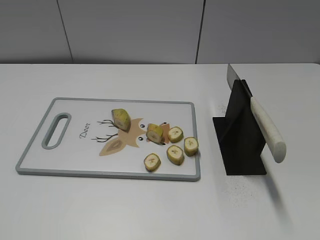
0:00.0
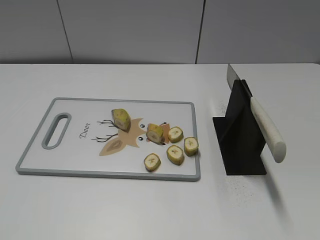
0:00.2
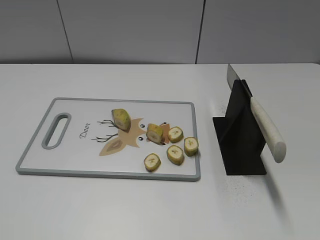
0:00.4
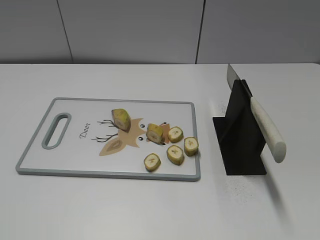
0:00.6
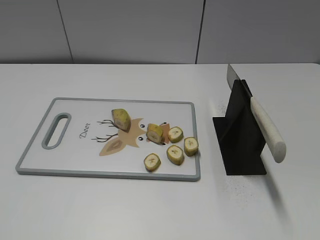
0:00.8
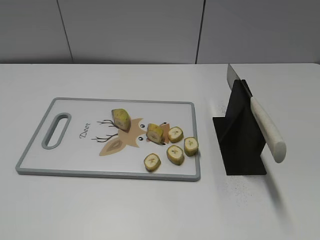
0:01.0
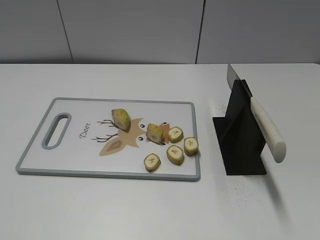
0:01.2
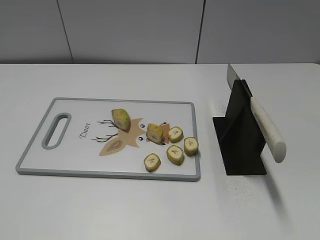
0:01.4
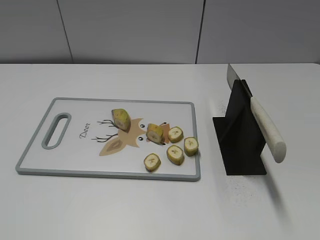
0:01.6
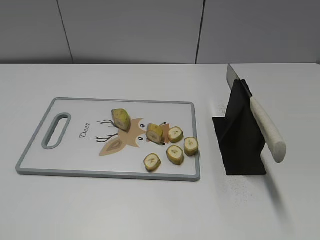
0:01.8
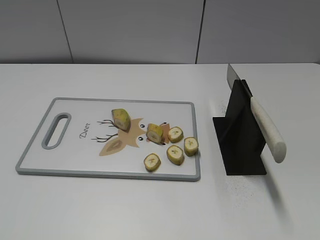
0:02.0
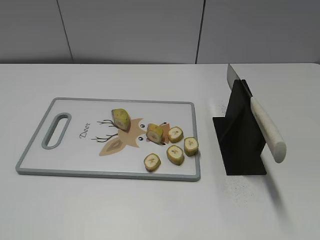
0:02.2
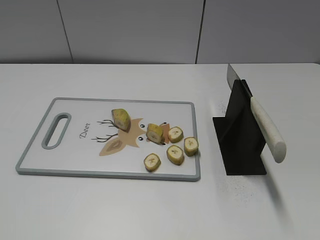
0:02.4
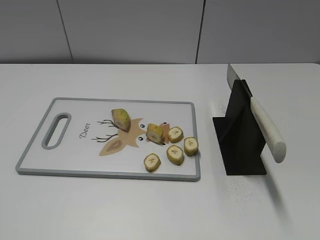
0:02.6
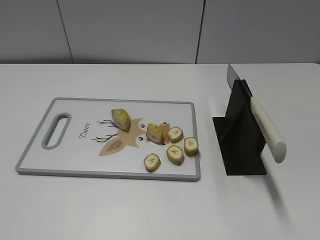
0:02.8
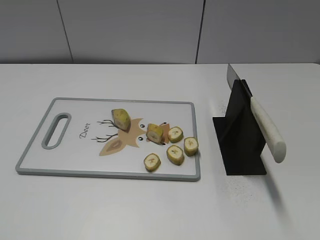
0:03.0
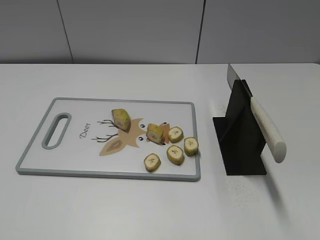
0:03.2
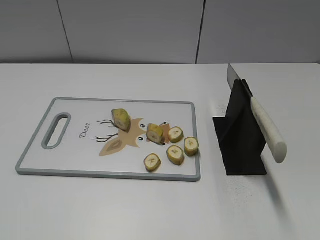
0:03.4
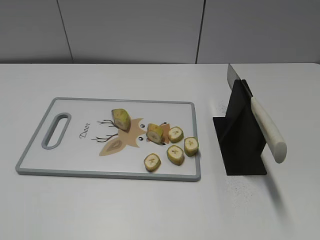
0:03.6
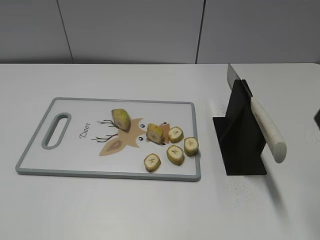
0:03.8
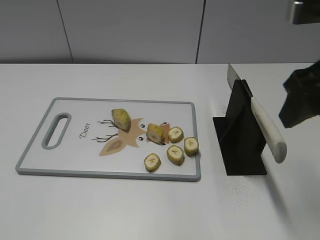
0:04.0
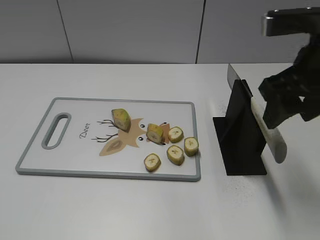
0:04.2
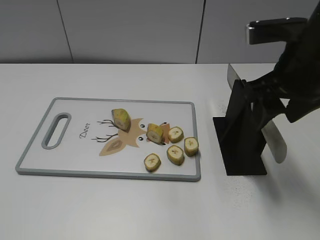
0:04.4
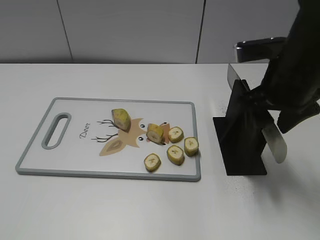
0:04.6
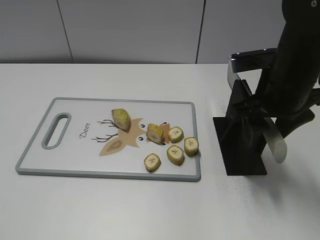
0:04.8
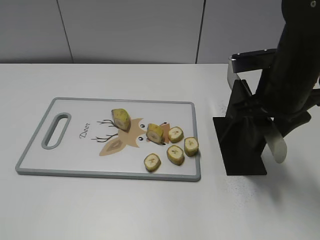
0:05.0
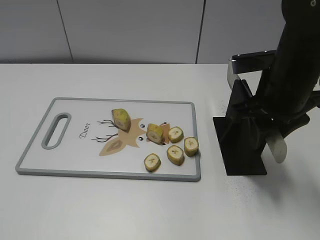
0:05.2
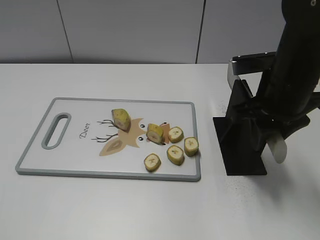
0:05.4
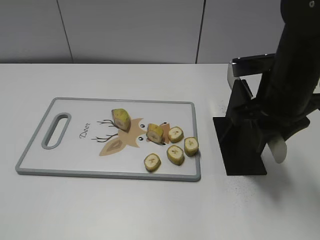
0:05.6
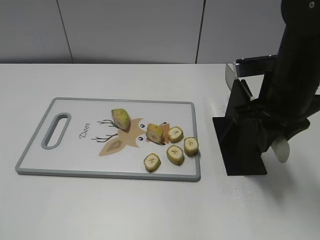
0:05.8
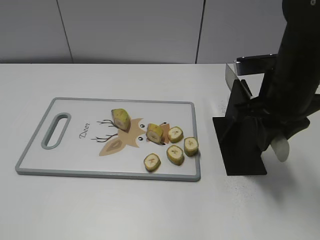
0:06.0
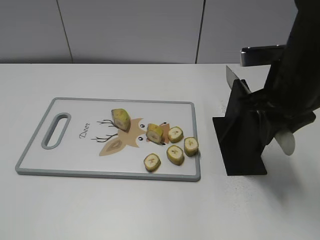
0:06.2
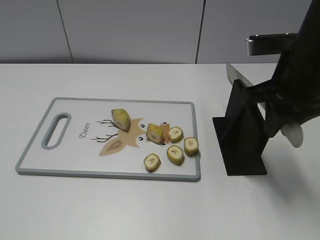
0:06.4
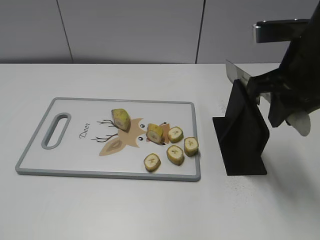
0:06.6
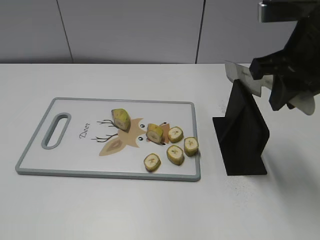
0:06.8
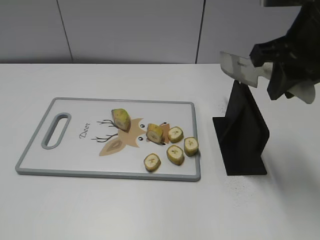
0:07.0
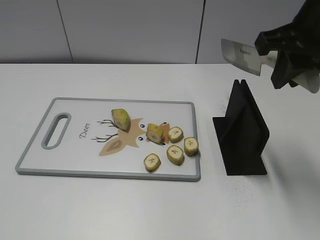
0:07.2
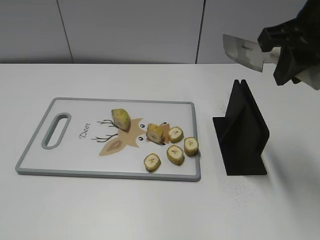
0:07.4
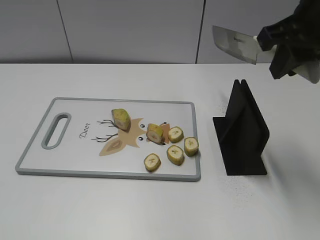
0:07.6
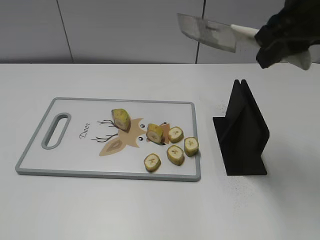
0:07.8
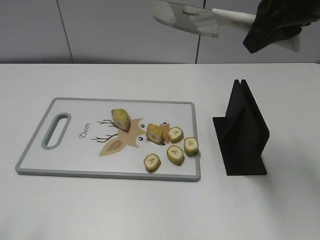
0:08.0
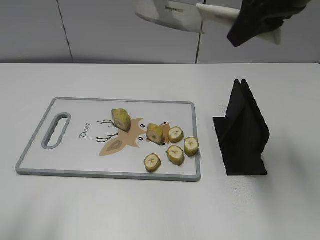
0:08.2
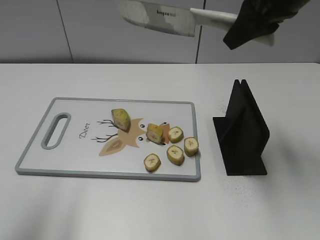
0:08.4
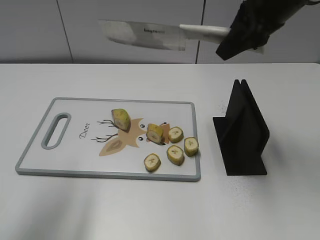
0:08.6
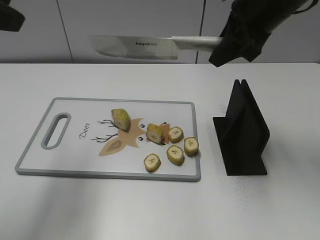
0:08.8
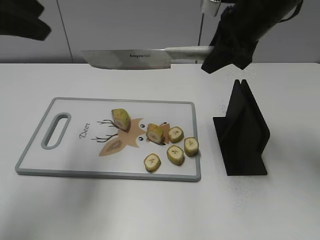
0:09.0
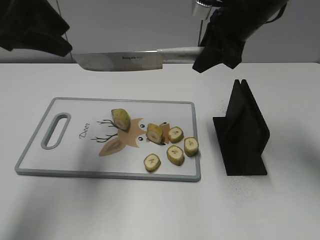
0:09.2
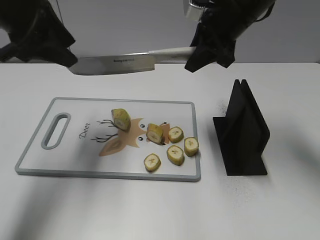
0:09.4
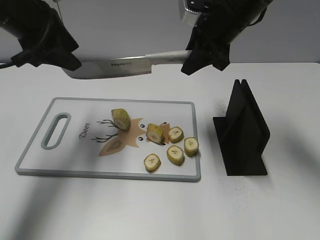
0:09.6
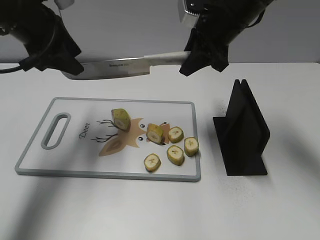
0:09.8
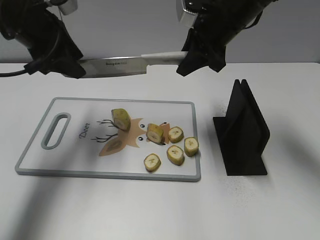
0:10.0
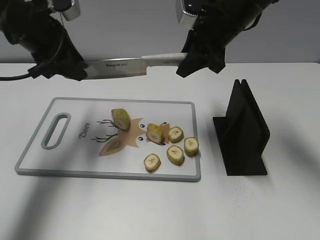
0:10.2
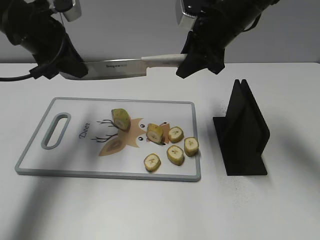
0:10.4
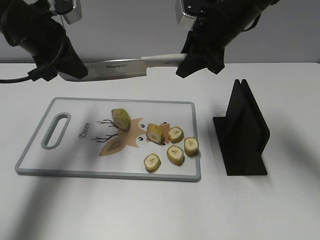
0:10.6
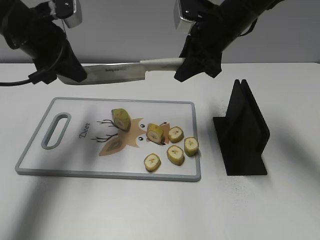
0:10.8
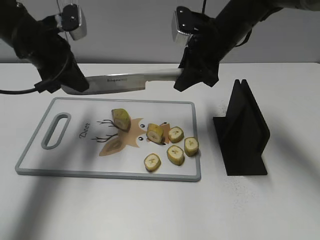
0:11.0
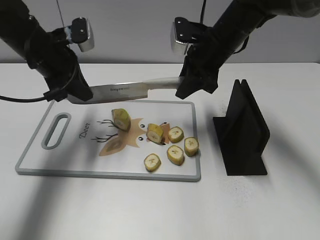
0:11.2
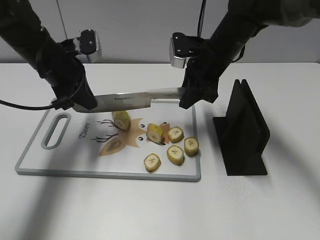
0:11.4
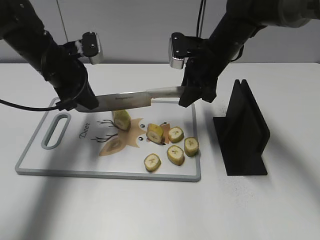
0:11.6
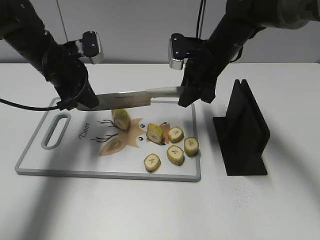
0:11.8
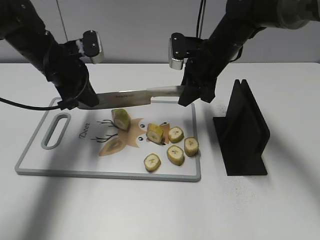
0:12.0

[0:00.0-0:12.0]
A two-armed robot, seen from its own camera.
Task of the whole recording: cut banana.
Step, 0:00.0 to 0:07.6: Grab the knife handle with your right hand.
0:03.0 to 0:04.4: The right gripper shifts some 20 cm forward and to the left.
0:04.4 to 0:06.0: The right gripper moves downward, approximately 5 cm, and closes up.
0:06.0 to 0:07.6: The right gripper moves upward, approximately 10 cm.
0:07.6 to 0:09.0: The right gripper goes some 10 cm forward, while the left gripper shifts some 25 cm forward.
0:09.0 to 0:10.4: The left gripper moves downward and forward, some 15 cm, and closes its fingers, while the right gripper changes place by about 5 cm.
0:10.4 to 0:12.0: Both grippers move downward, approximately 10 cm.

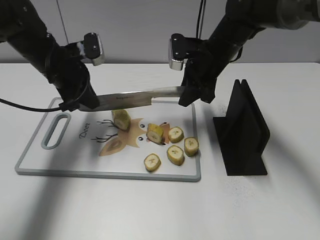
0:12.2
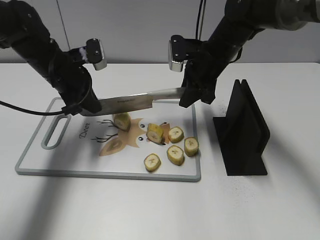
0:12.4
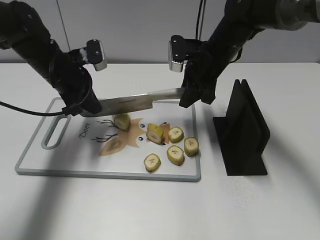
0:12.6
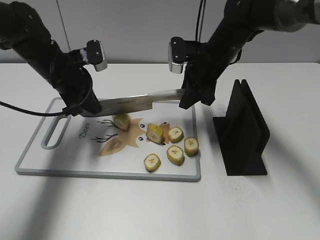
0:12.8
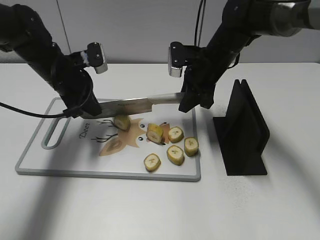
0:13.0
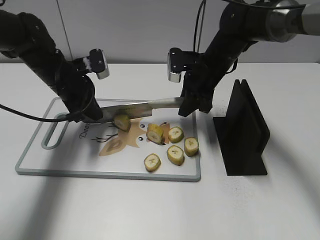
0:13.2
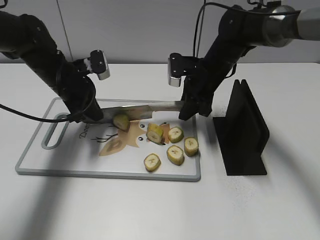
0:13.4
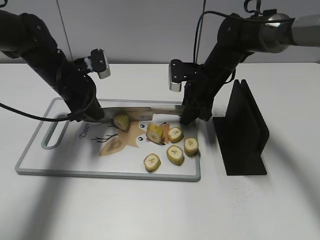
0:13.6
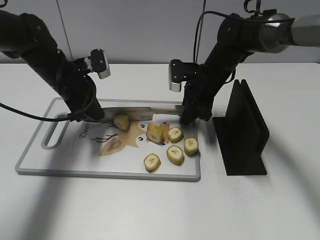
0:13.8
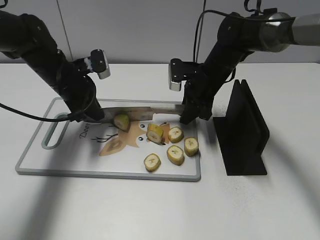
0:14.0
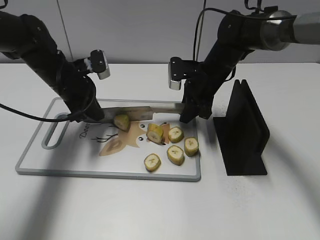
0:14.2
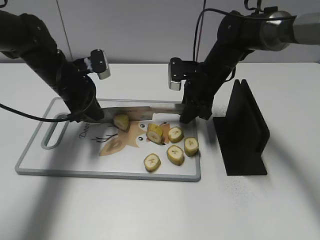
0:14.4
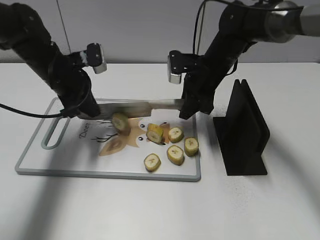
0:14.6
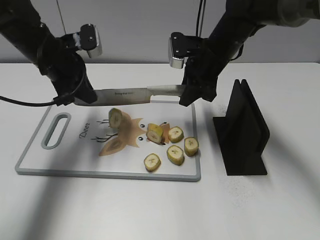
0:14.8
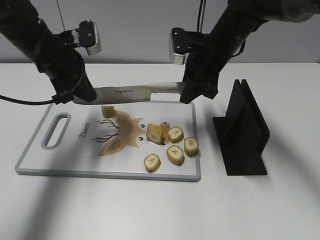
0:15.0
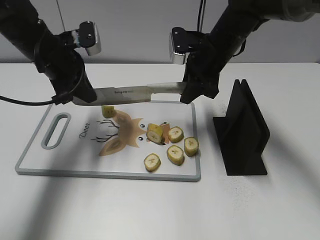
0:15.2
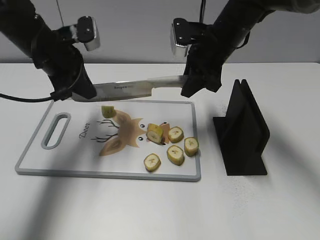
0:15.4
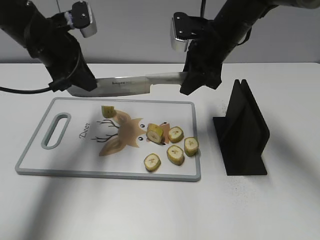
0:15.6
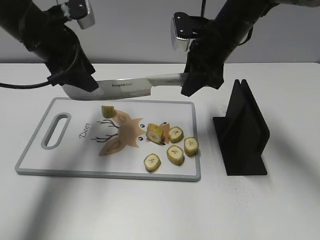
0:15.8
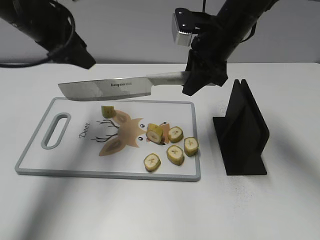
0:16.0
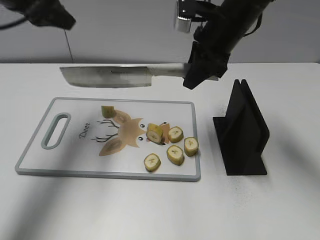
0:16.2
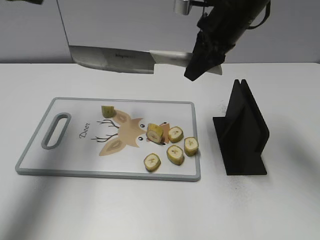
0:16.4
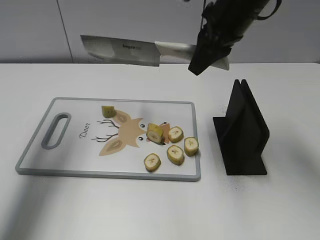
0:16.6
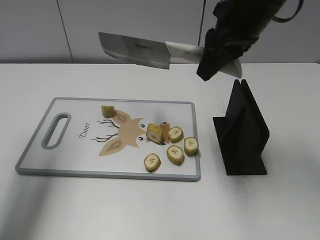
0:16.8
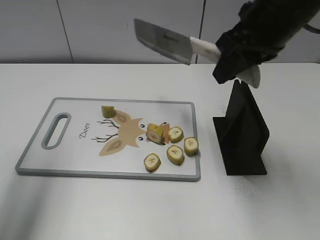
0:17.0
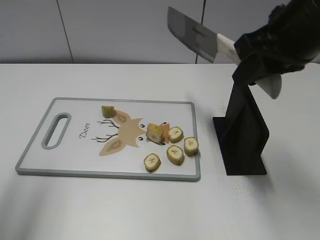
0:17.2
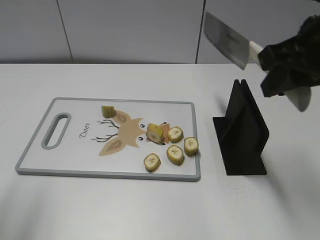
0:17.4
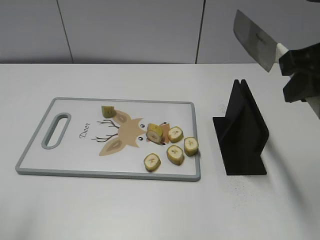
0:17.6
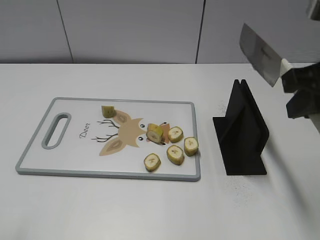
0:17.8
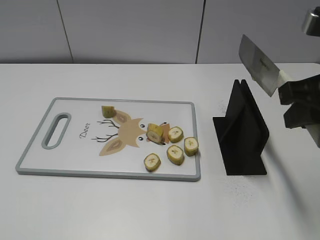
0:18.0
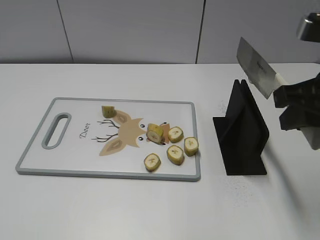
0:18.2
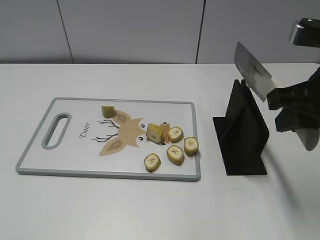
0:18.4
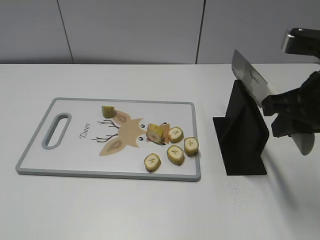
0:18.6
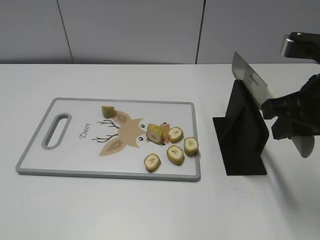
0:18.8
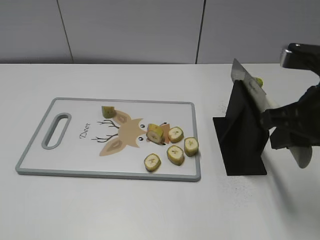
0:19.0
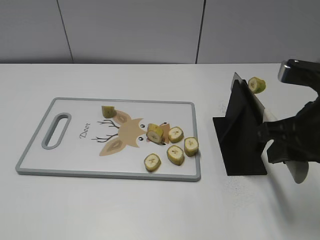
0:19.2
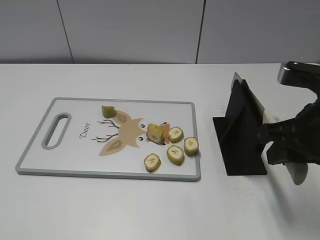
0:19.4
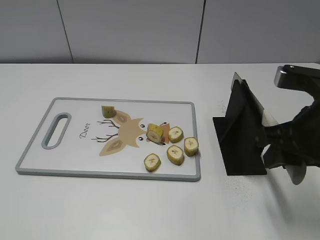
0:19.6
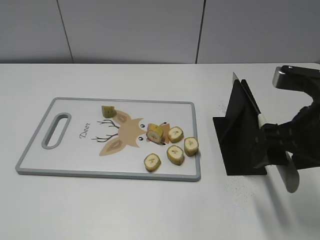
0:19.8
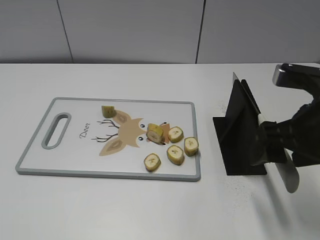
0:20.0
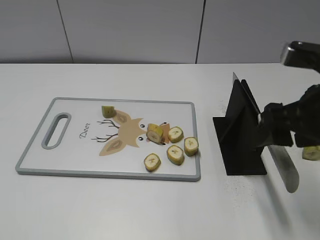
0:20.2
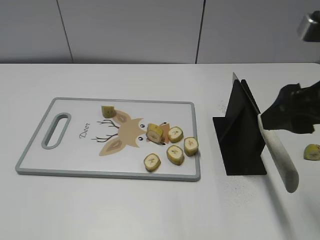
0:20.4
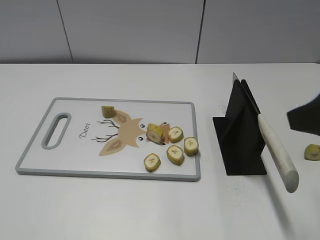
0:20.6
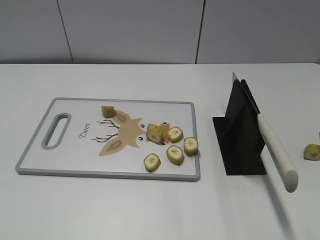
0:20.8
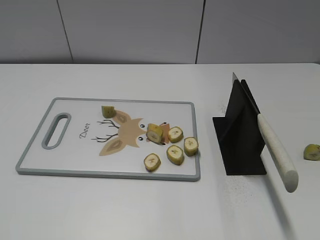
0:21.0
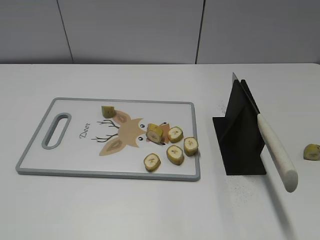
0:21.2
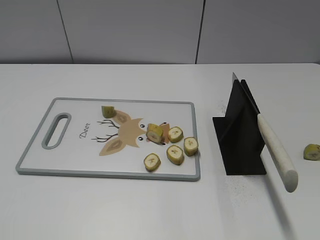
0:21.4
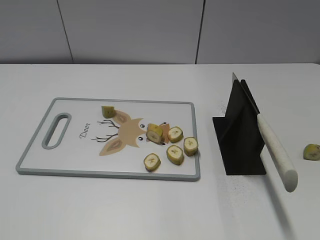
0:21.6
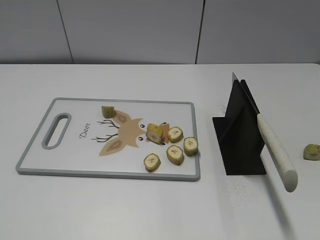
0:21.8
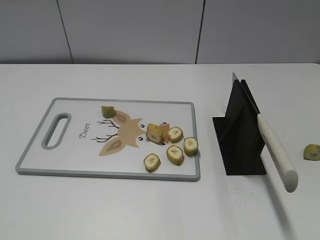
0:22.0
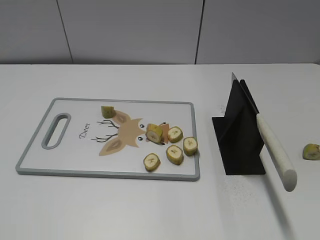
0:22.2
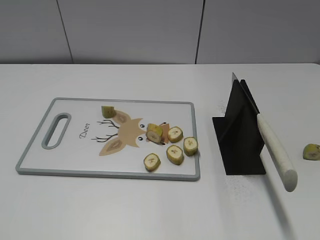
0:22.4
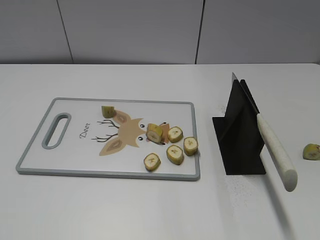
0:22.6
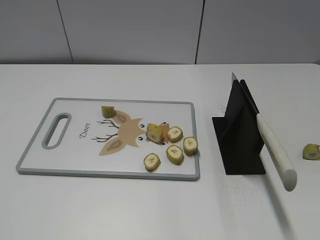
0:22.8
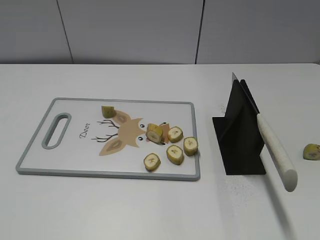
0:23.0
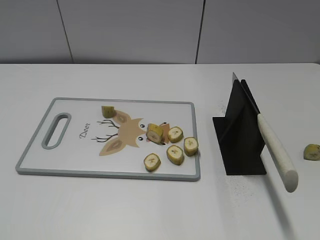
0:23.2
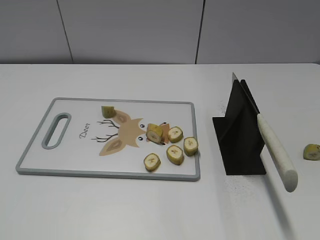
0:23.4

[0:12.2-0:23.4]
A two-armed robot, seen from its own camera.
Task of the whole recording: cut banana.
Step, 0:13.2 to 0:17.2: Cut the banana with your right hand.
Step, 0:17.4 to 0:19.6: Lift the knife with your right hand.
Step, 0:19.8 to 0:23.4: Place the knife on the storage rack with your right hand.
0:12.2 to 0:13.8: The right gripper shifts about 5 cm downward.
0:13.8 to 0:15.4: Both grippers move upward, some 10 cm.
0:15.4 to 0:17.0: The left gripper is displaced upward, backward and to the left by about 25 cm, and opens its fingers. The right gripper moves backward and upward, approximately 15 cm.
0:17.0 to 0:18.6: The right gripper moves backward, to the right and downward, about 10 cm, while the left gripper travels backward and downward by roughly 25 cm.
0:18.6 to 0:20.2: The right gripper opens.
0:20.2 to 0:21.8: The right gripper heads backward and to the right, covering approximately 20 cm.
